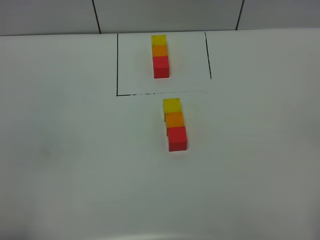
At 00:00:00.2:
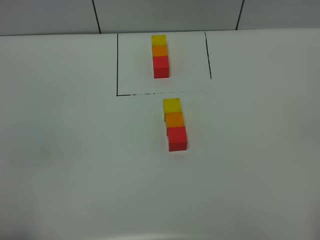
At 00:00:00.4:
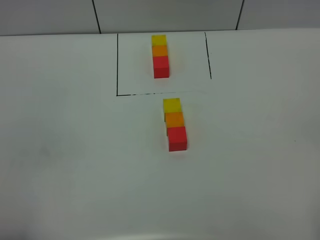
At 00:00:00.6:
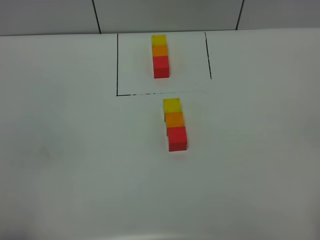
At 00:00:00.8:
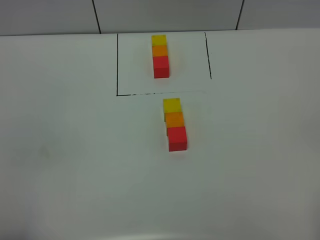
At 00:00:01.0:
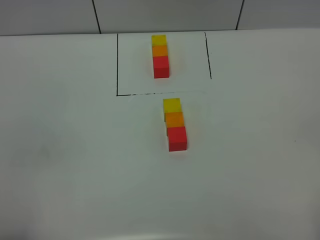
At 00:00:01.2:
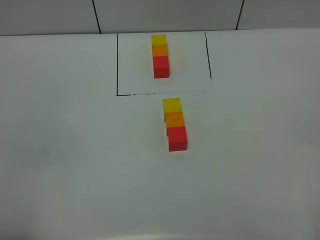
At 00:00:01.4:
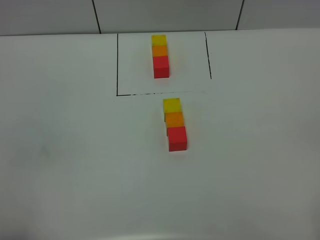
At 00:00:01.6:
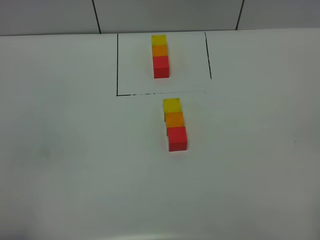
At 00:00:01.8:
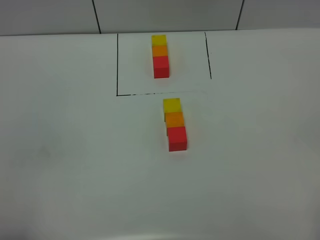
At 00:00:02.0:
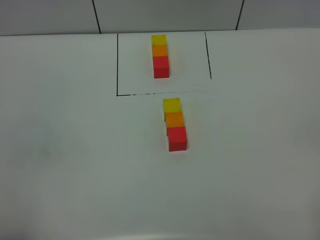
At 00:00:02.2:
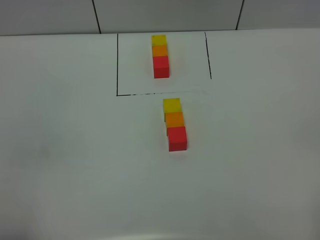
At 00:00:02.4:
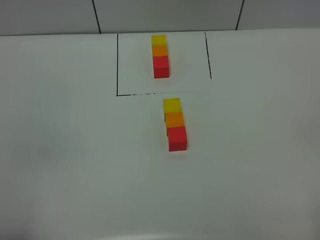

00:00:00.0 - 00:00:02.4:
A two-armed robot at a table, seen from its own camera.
Task of the whole recording: According to the building block template in front, assemble the scattered blocks together.
00:00:00.0 - 00:00:01.2: Both grippers stay put.
00:00:01.2 - 00:00:02.4: Neither gripper changes place.
